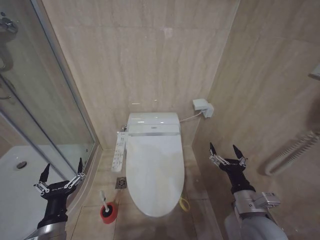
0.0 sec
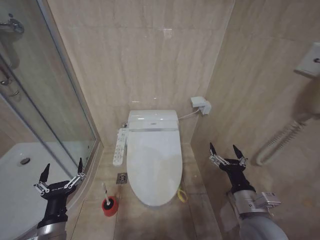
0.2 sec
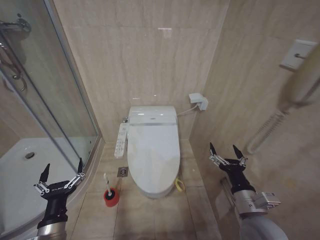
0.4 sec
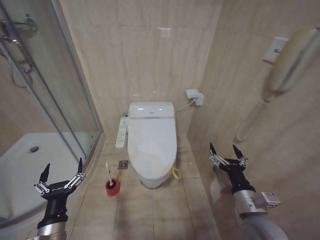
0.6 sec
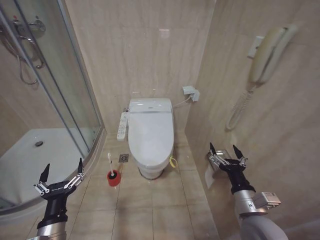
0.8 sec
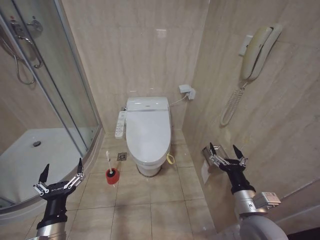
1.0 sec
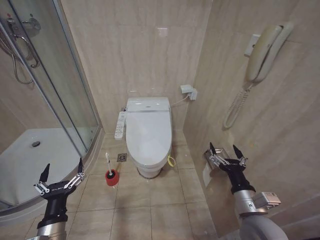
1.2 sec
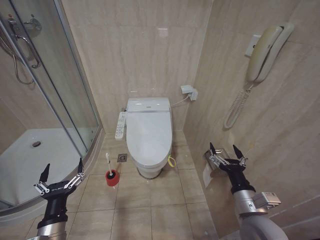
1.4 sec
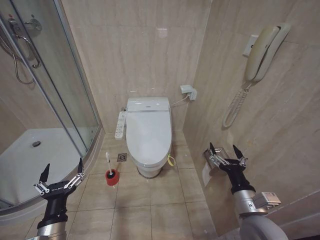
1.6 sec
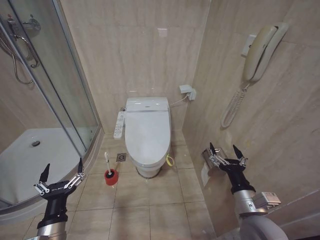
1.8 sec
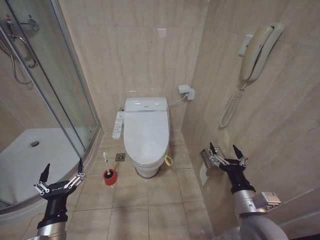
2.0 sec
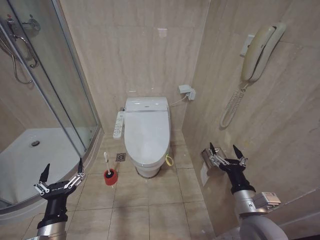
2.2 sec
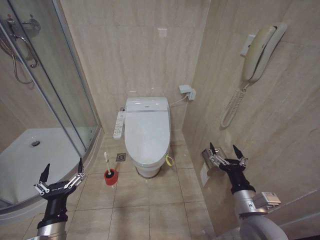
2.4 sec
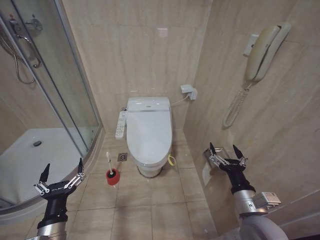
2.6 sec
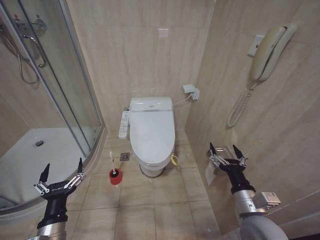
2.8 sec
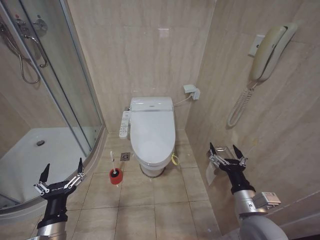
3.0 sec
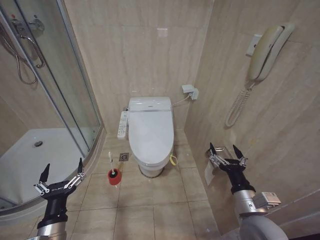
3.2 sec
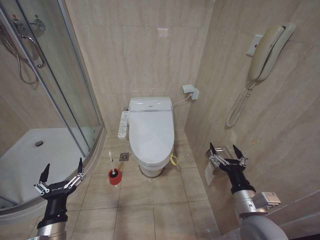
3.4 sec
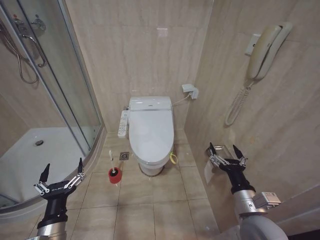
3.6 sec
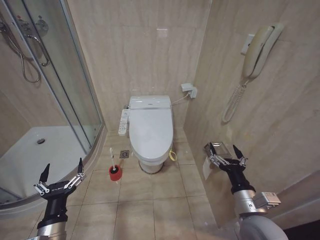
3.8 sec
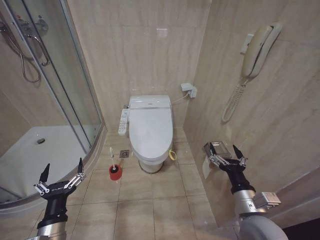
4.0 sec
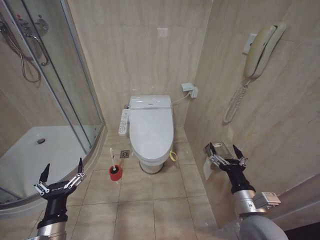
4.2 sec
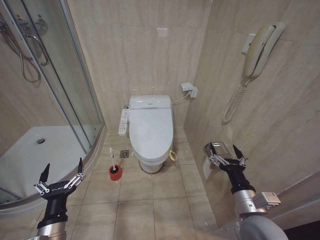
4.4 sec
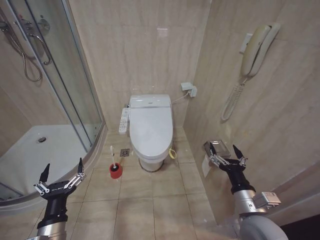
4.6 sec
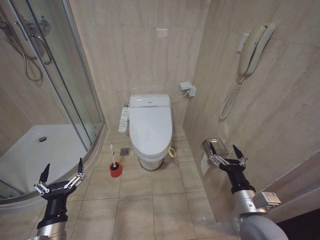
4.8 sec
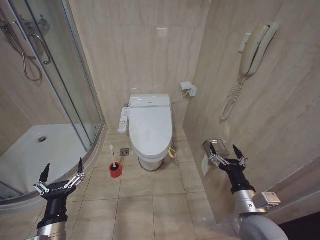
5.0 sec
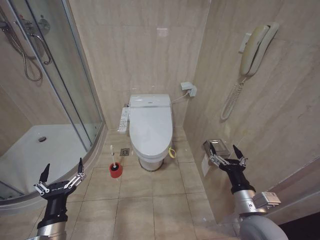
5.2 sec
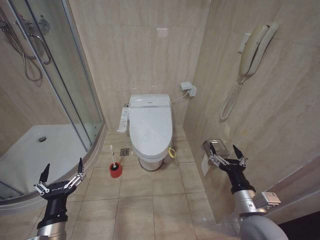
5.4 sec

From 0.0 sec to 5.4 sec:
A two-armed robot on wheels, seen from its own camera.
Task of the whole recording: Open the toilet lid, clean the toilet bowl with a toilet brush, close the toilet lid, and flush.
From 1.4 sec to 5.4 sec: Neither gripper changes place.

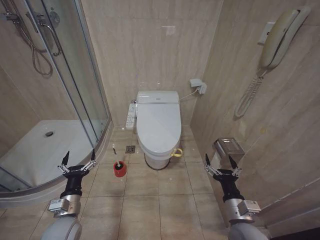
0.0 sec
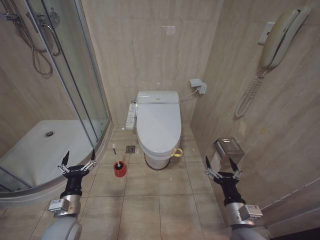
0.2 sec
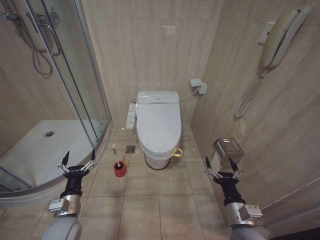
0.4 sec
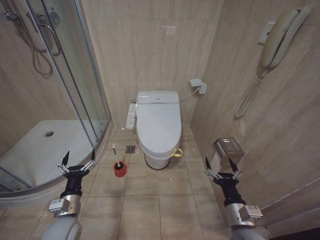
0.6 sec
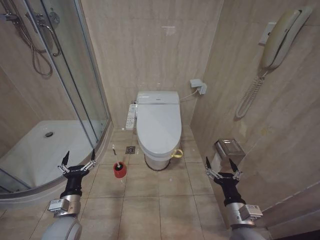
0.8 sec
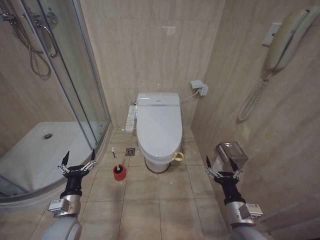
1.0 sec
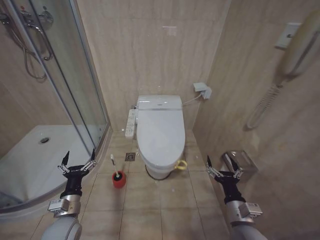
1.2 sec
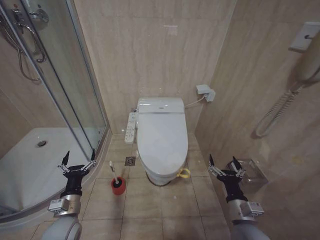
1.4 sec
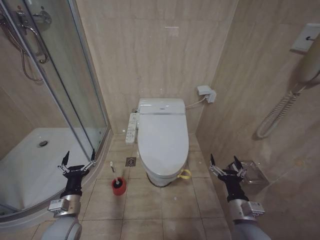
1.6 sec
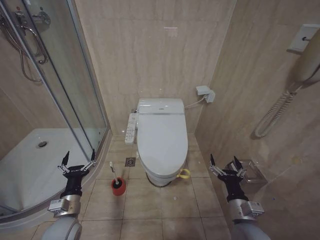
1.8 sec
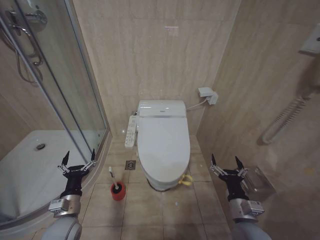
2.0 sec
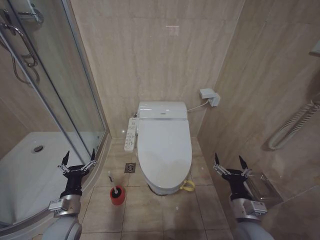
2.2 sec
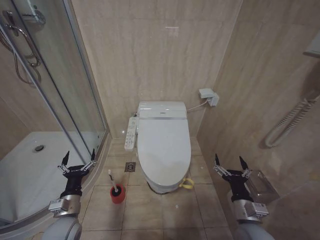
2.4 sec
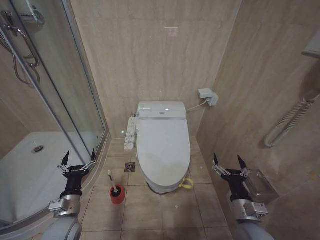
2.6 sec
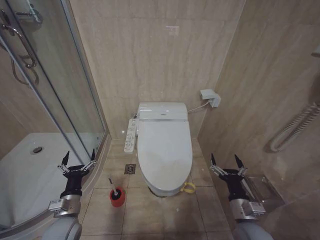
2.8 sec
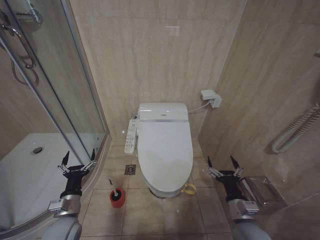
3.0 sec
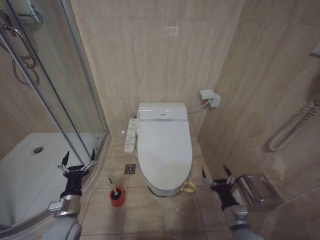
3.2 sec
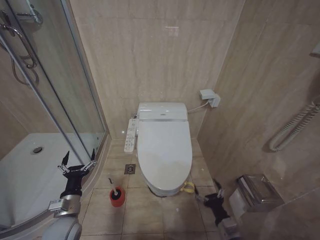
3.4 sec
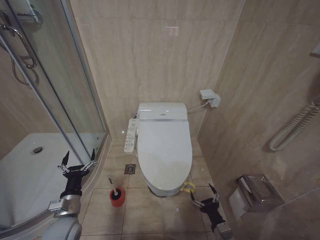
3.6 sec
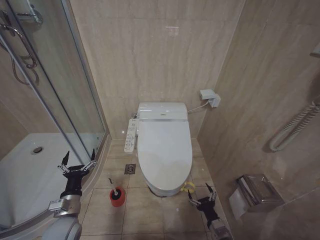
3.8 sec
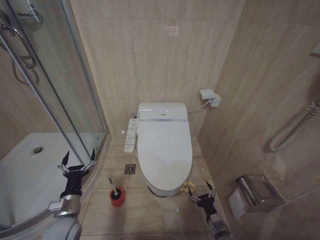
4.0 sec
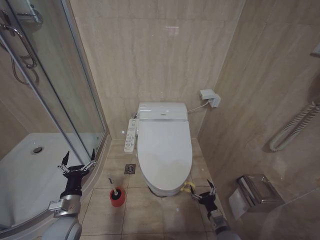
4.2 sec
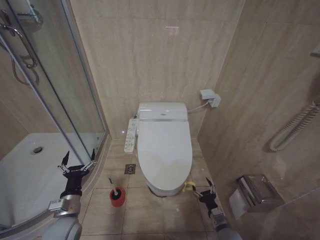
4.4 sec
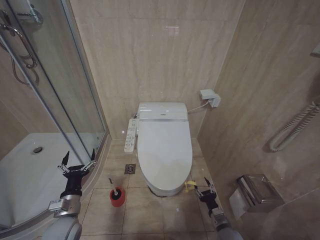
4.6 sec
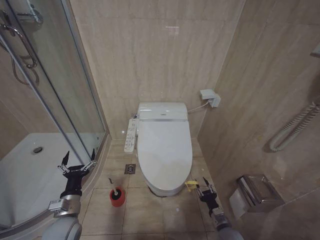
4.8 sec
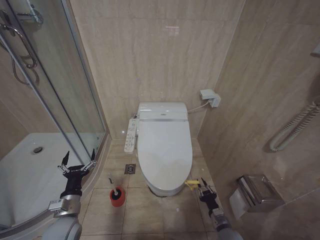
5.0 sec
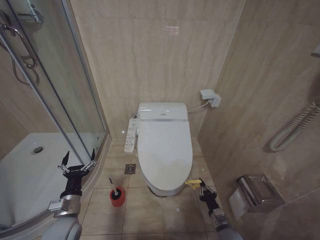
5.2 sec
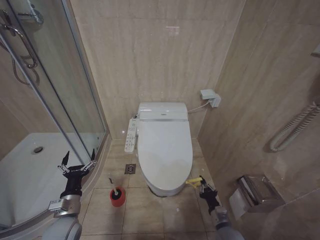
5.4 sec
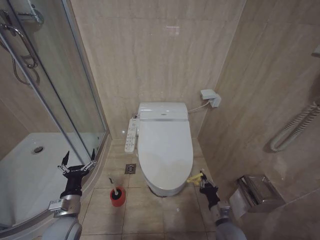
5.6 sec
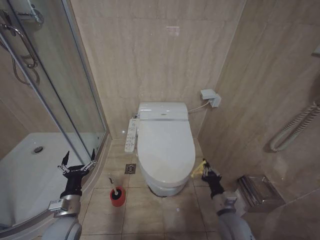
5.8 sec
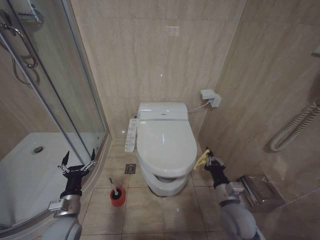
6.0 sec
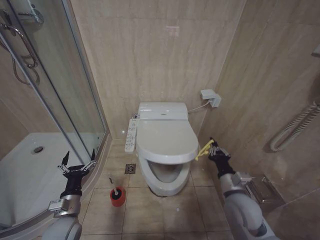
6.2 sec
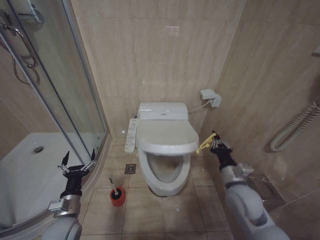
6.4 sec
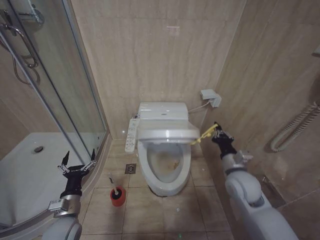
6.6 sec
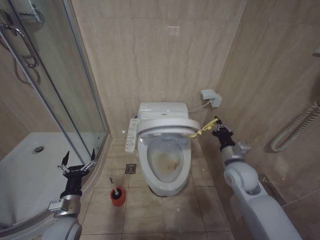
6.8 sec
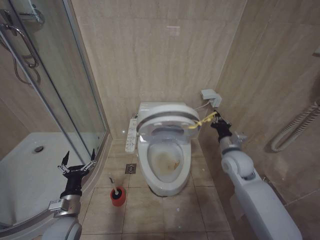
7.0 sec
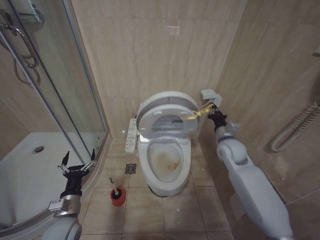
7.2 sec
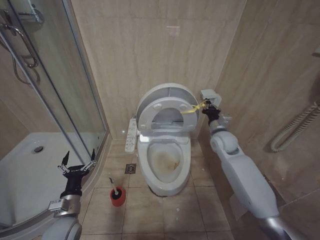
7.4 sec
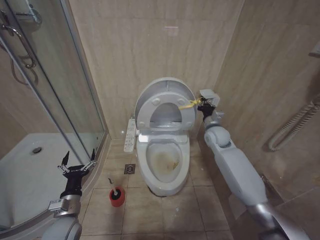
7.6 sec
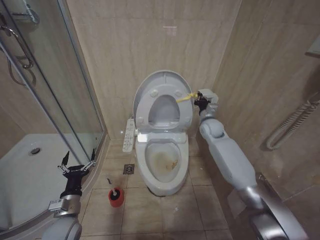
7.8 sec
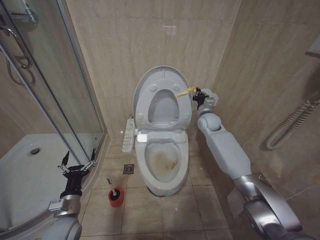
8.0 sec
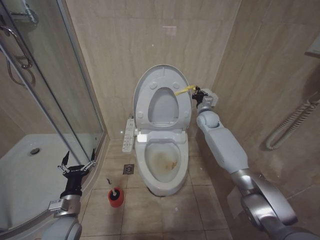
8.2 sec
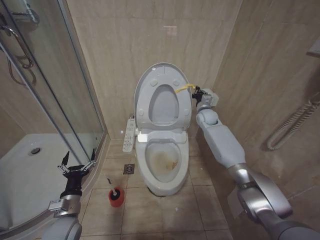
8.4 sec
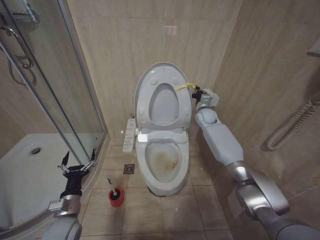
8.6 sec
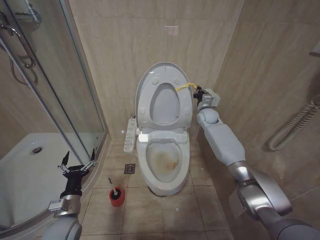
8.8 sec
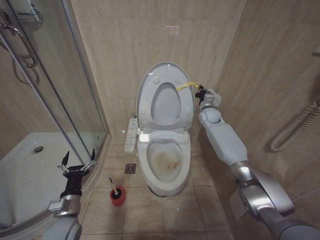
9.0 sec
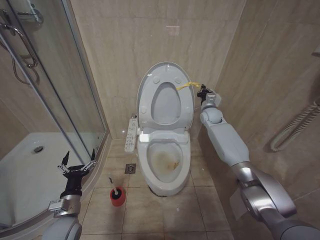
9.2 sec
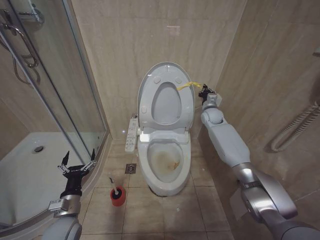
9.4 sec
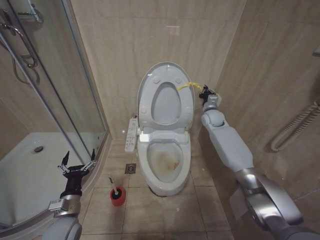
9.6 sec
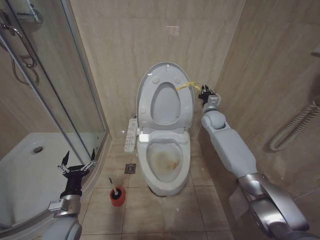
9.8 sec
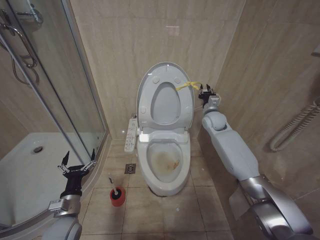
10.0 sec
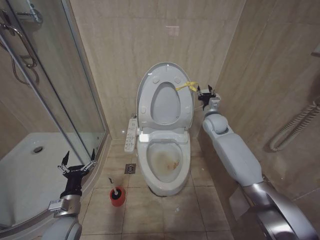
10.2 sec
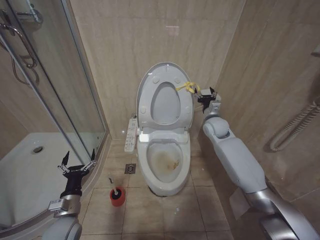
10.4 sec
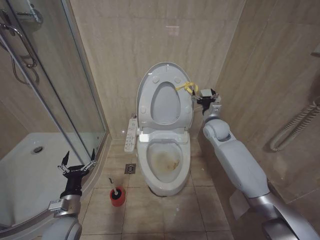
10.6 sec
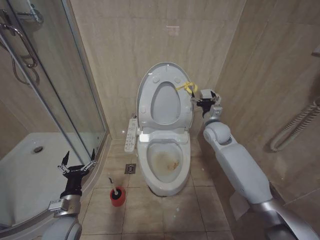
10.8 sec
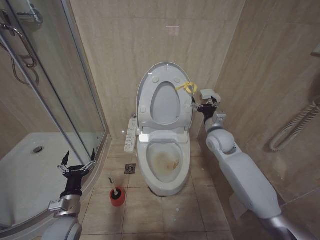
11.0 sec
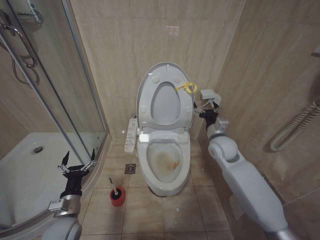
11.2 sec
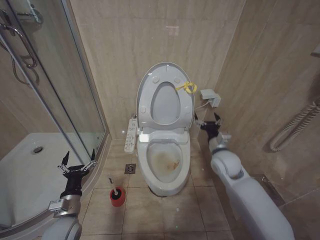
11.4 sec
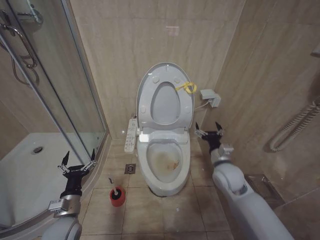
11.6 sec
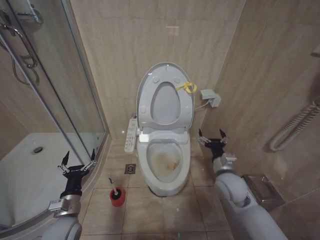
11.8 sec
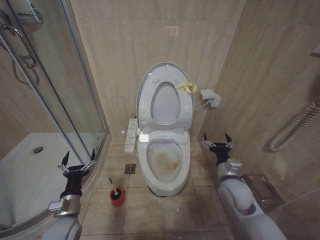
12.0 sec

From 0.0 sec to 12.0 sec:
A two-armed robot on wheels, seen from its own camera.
Task of the whole recording: Open the toilet lid, clean the toilet bowl with a toilet brush, close the toilet lid, and flush.
From 1.6 sec to 3.0 sec: There are only small adjustments of the grippers.
From 3.0 sec to 4.4 sec: The right gripper goes roughly 15 cm downward.
From 4.4 sec to 6.0 sec: The right gripper heads upward, covering some 15 cm, and closes up.
From 6.0 sec to 7.6 sec: The right gripper is displaced forward and upward by approximately 30 cm.
From 7.6 sec to 9.0 sec: The right gripper travels forward by about 15 cm.
From 9.0 sec to 10.4 sec: The right gripper shifts roughly 10 cm backward, and opens its fingers.
From 10.4 sec to 12.0 sec: The right gripper is displaced backward and downward by roughly 25 cm, and opens its fingers.

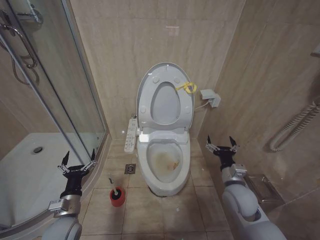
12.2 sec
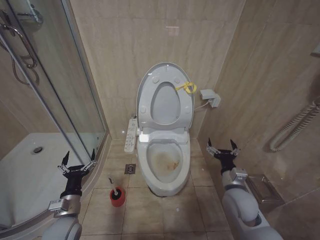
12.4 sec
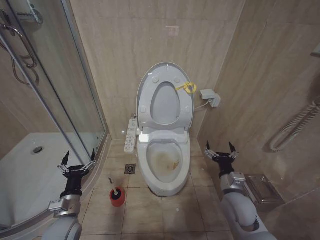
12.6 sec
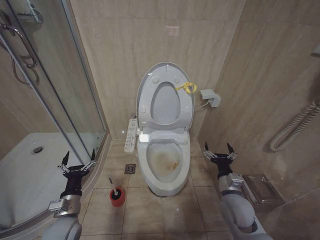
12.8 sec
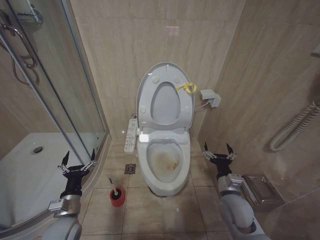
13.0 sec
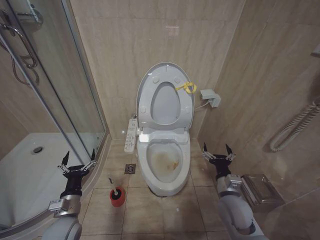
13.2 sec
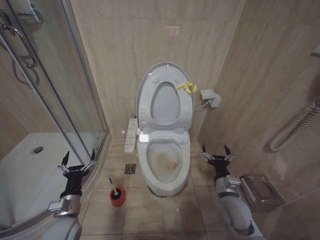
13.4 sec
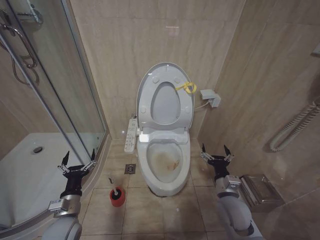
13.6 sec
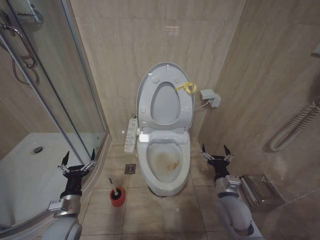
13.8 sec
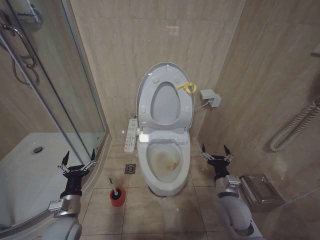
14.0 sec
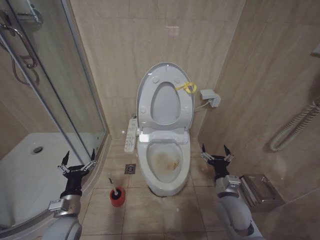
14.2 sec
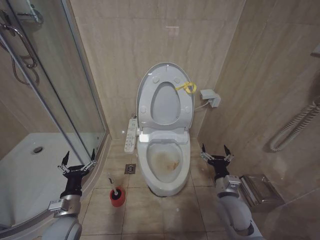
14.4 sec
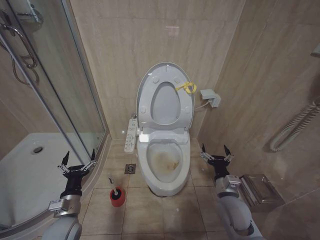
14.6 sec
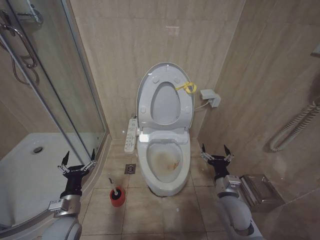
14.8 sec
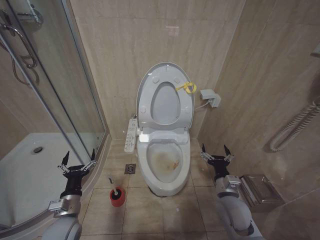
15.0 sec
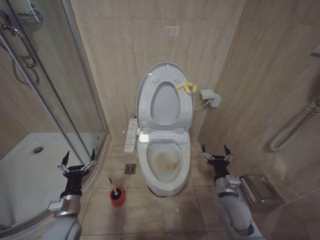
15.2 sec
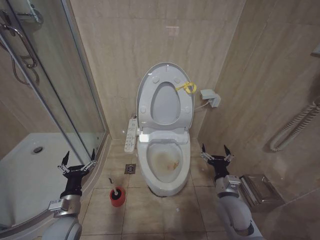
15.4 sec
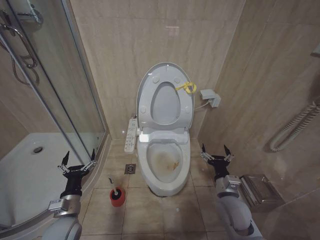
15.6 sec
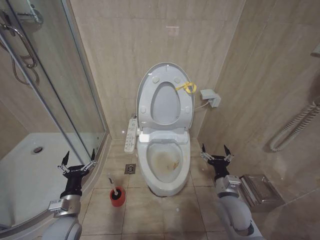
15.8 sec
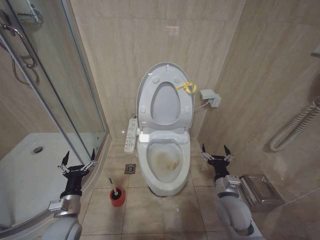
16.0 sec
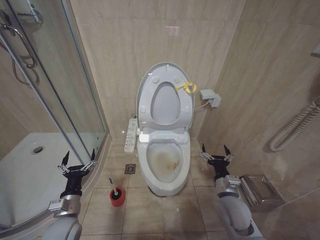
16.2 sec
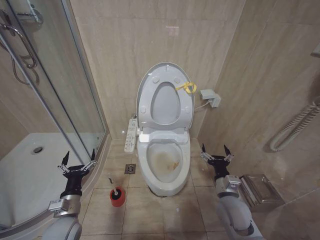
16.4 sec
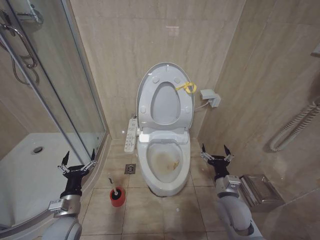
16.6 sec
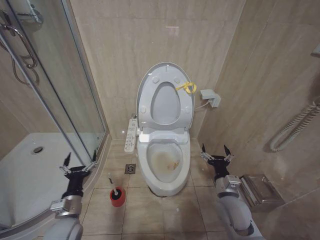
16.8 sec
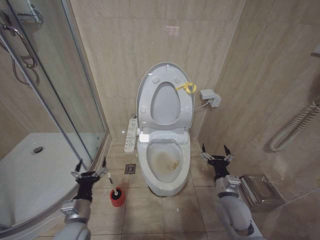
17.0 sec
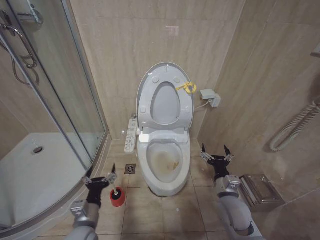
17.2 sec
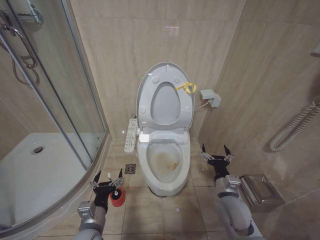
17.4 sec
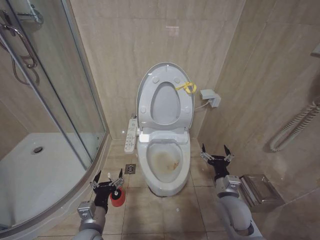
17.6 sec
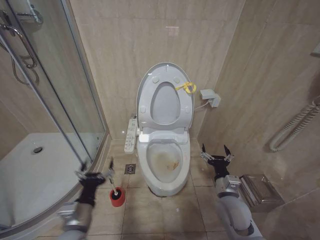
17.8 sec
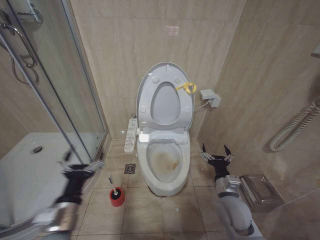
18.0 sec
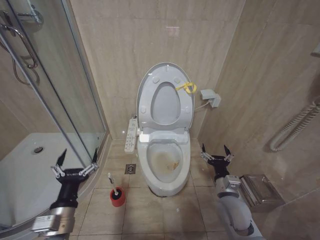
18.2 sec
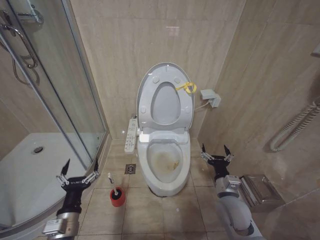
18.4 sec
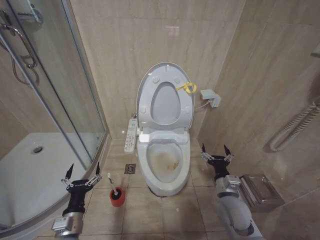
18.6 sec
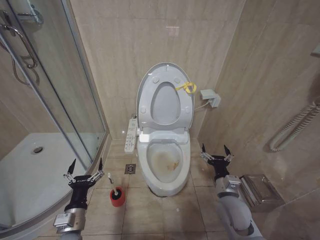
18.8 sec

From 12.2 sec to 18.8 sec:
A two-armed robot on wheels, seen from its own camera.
Task of the whole recording: Open the toilet lid, clean the toilet bowl with a toilet brush, close the toilet lid, and flush.
From 12.2 sec to 13.8 sec: The right gripper changes place by roughly 5 cm.
From 13.8 sec to 15.4 sec: The two grippers keep their place.
From 15.4 sec to 17.2 sec: The left gripper heads to the right, covering some 5 cm.
From 17.2 sec to 18.8 sec: The left gripper moves roughly 10 cm upward and comes back.
